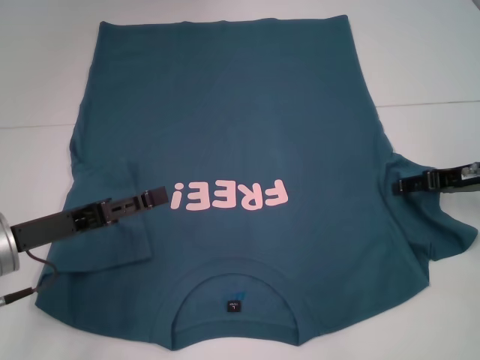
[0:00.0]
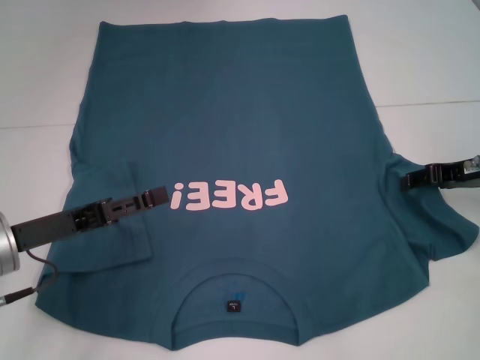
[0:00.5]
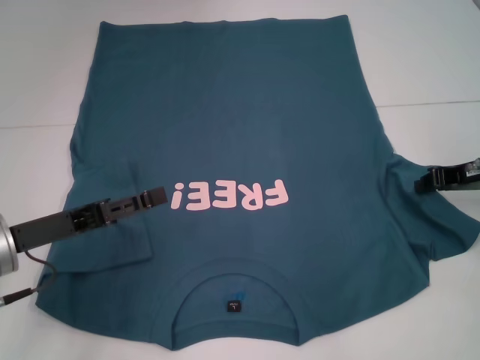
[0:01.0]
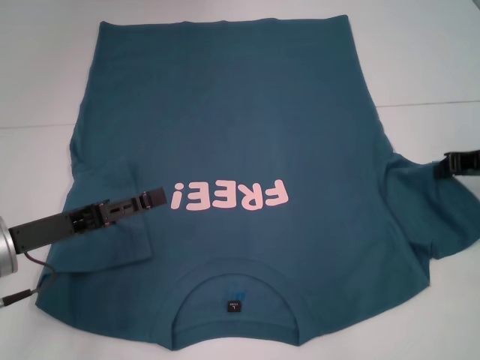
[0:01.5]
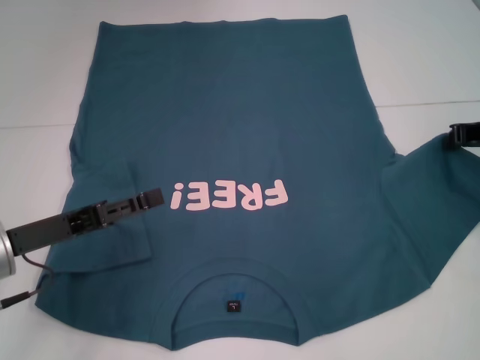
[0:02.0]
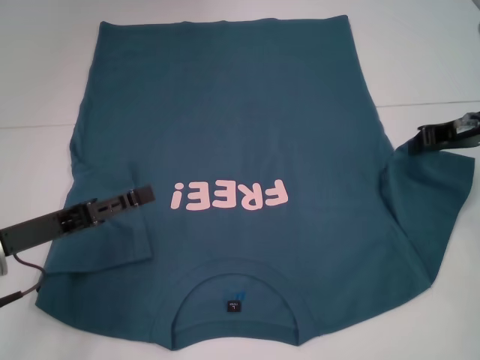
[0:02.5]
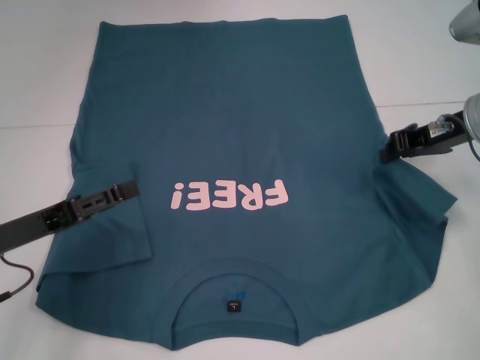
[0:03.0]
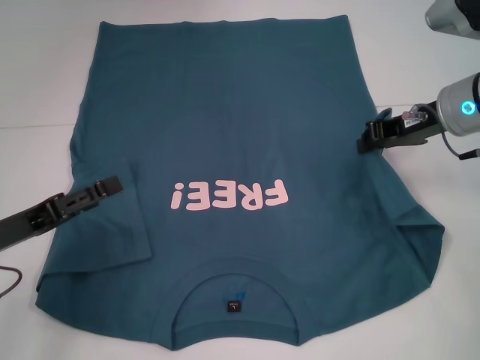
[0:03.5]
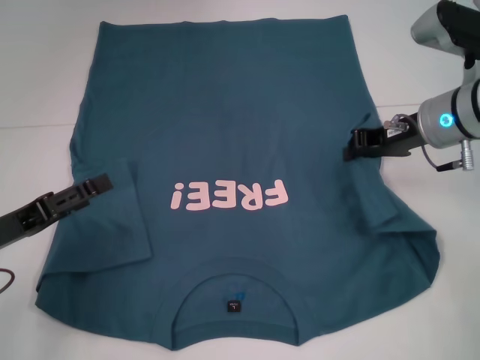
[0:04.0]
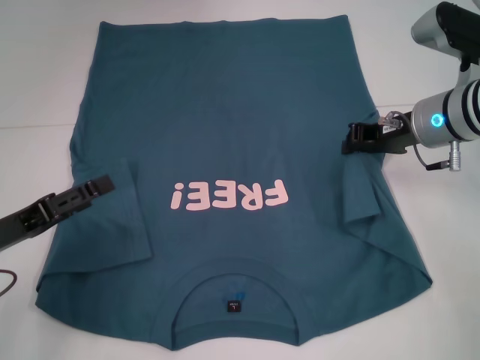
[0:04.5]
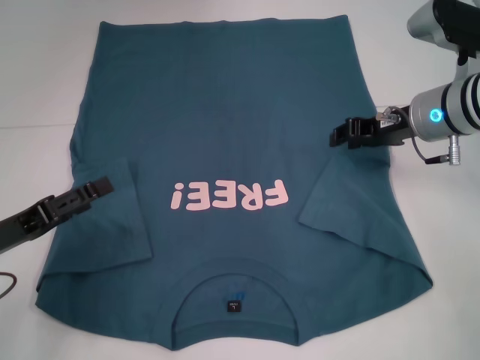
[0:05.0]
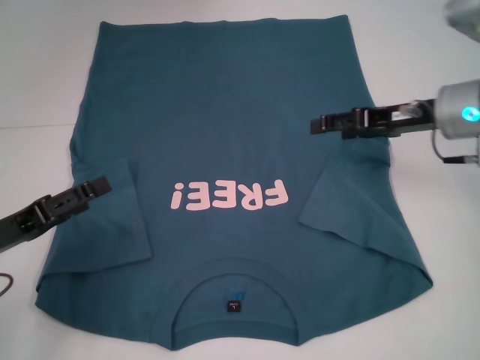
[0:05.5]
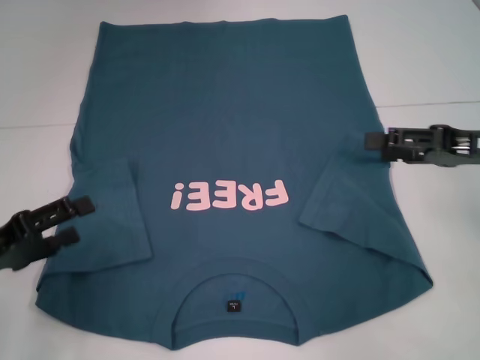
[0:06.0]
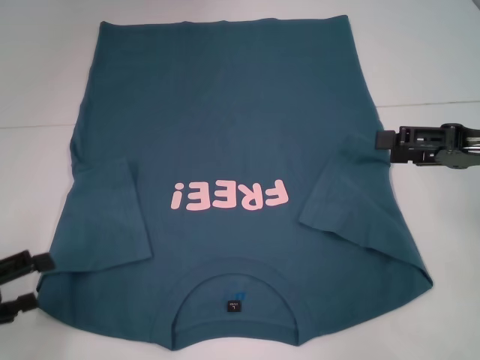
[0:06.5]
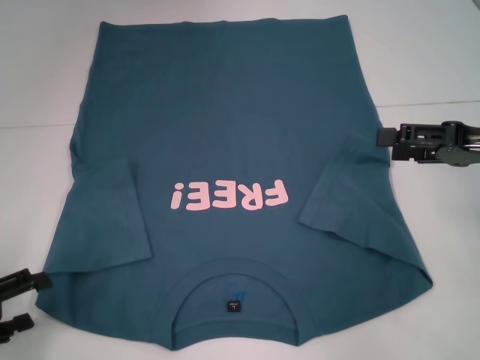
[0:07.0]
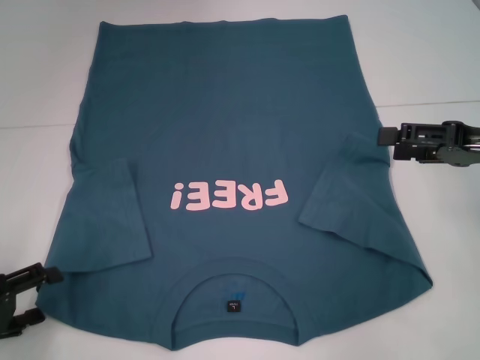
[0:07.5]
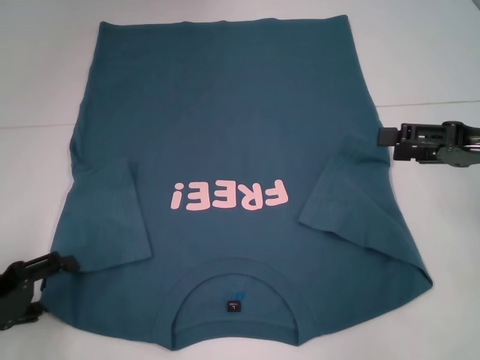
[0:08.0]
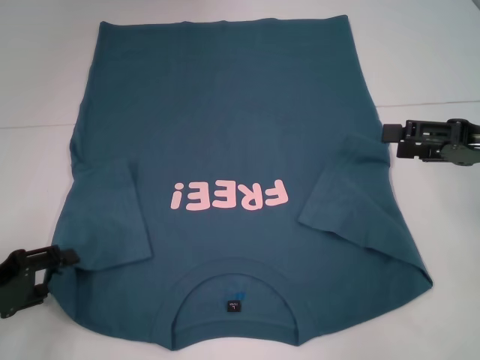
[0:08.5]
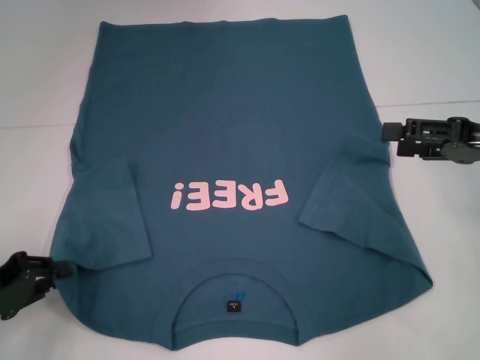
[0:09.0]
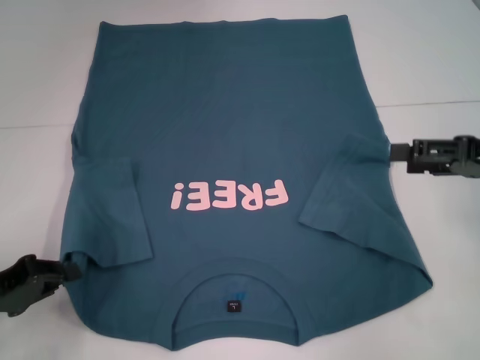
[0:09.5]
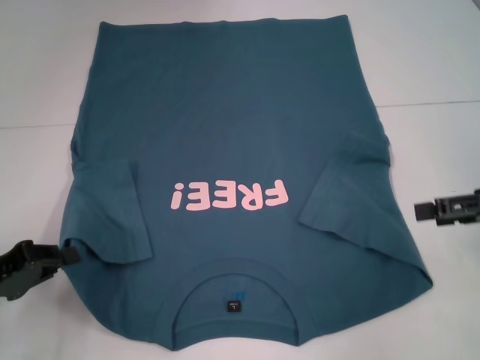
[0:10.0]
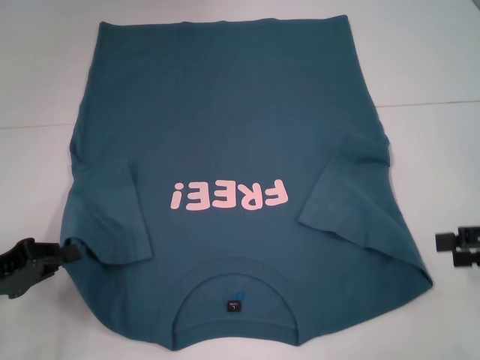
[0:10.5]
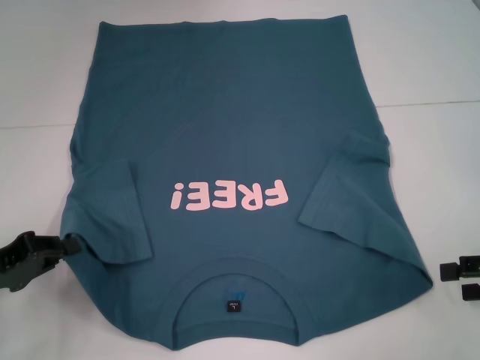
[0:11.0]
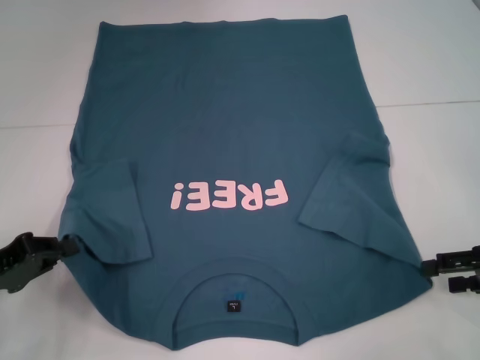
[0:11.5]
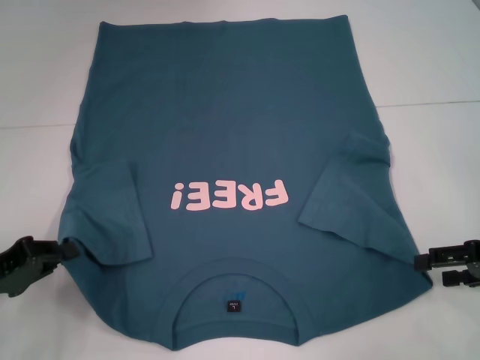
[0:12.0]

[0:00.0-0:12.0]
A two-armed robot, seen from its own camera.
Step, 0.0 to 4.5 s: Fold the bottom right sleeve to the right.
Step, 5.0 to 9.0 s: Grab the bottom left corner with your left hand.
0.0 to 2.0 s: The right gripper moves approximately 5 cm, and closes its fingers.
2.0 to 4.0 s: The right gripper moves to the left, roughly 10 cm.
4.0 to 6.0 s: The right gripper shifts some 10 cm backward and to the right, and opens its fingers.
8.0 to 10.0 s: The left gripper closes.
10.0 to 12.0 s: The right gripper is displaced downward by approximately 5 cm.

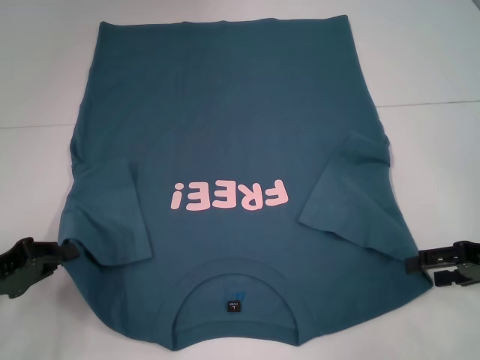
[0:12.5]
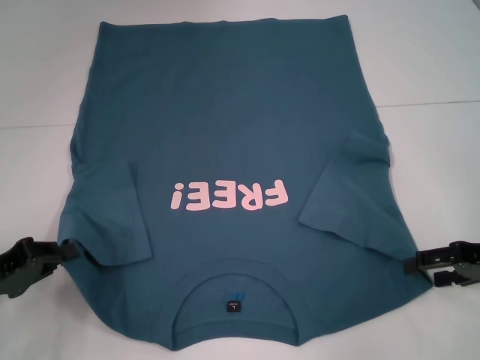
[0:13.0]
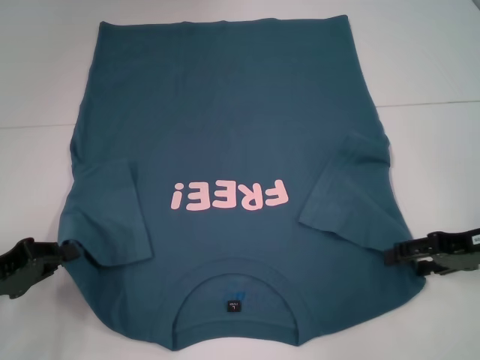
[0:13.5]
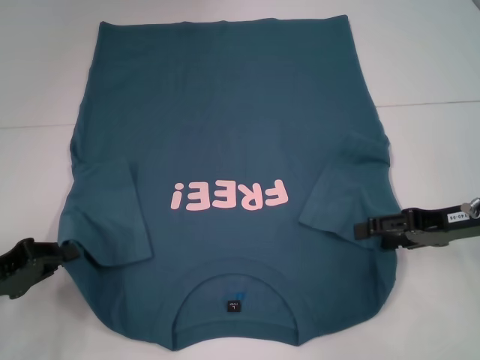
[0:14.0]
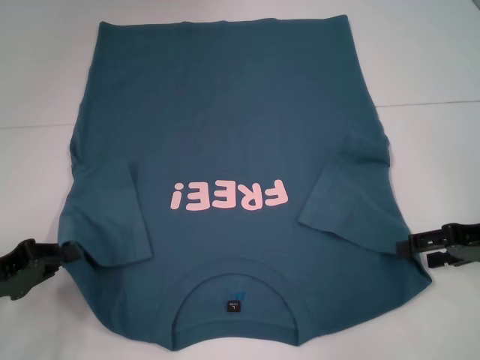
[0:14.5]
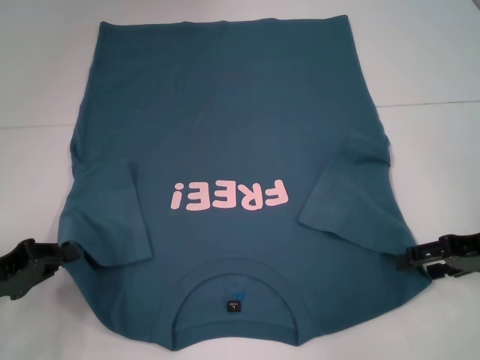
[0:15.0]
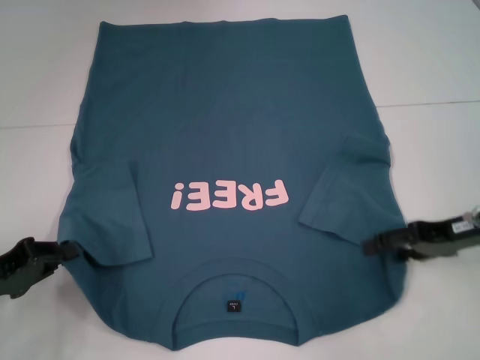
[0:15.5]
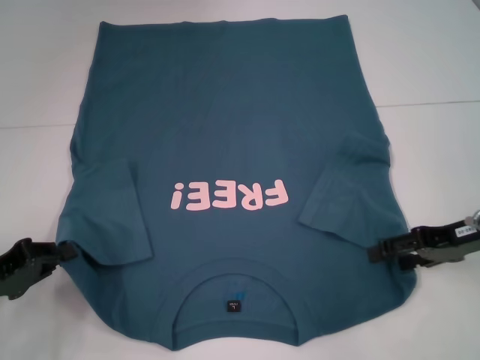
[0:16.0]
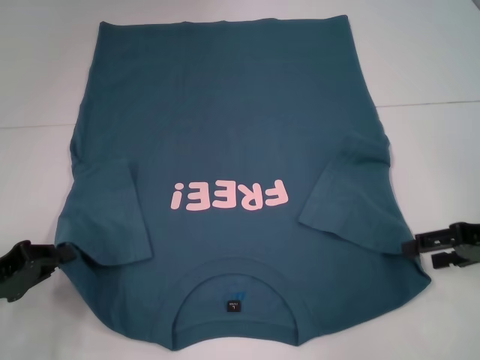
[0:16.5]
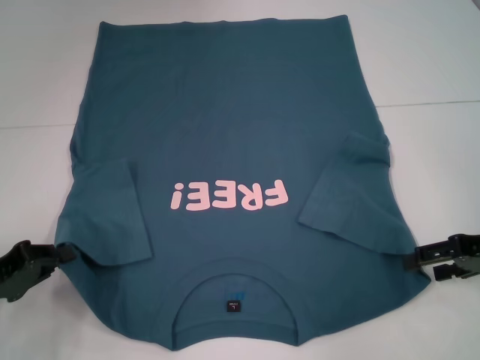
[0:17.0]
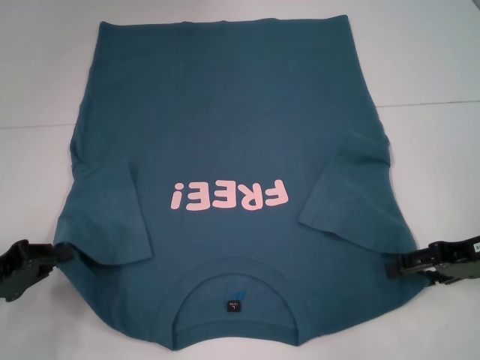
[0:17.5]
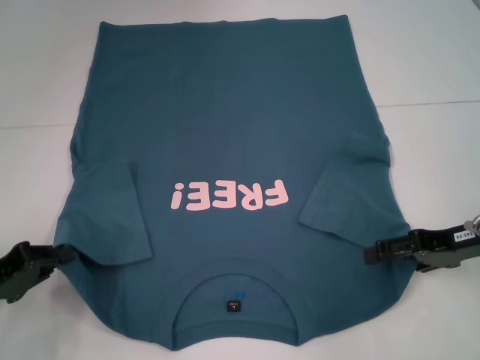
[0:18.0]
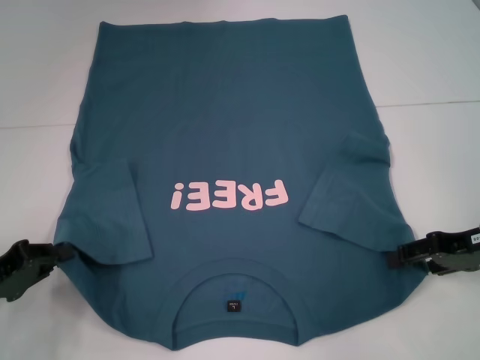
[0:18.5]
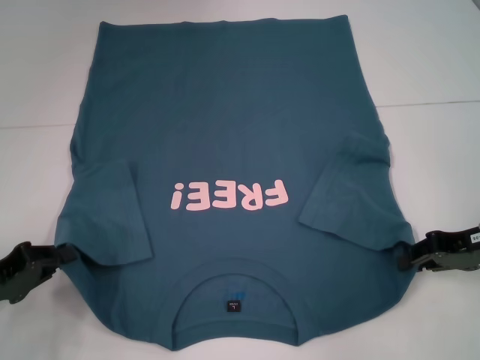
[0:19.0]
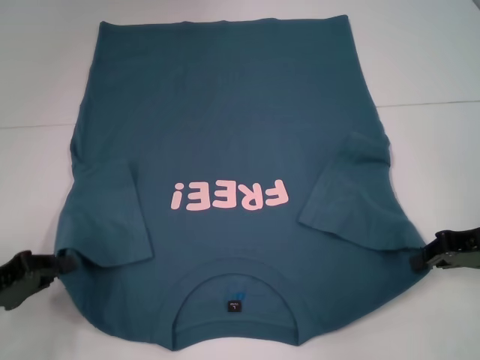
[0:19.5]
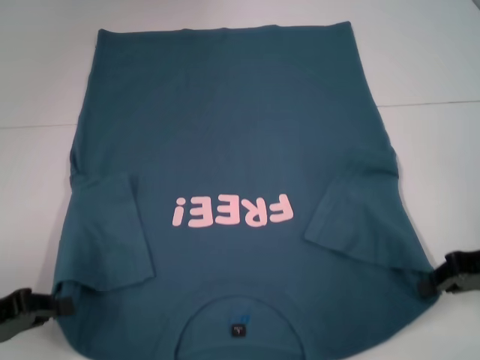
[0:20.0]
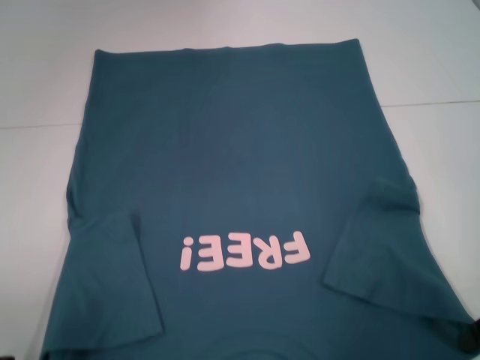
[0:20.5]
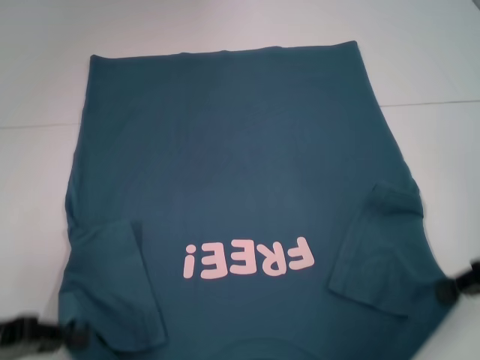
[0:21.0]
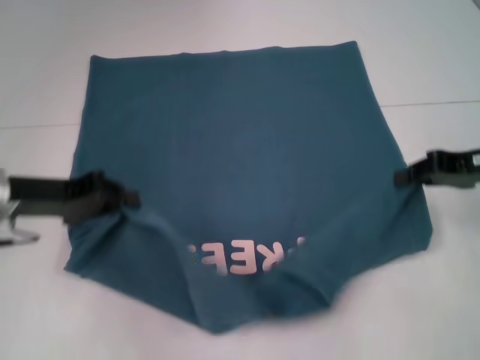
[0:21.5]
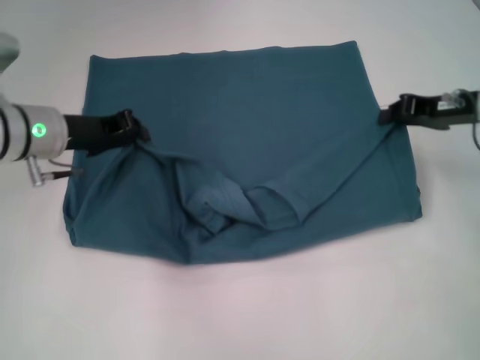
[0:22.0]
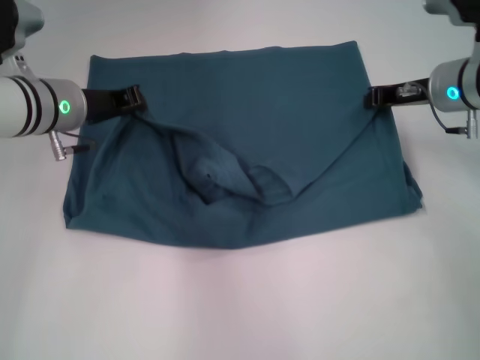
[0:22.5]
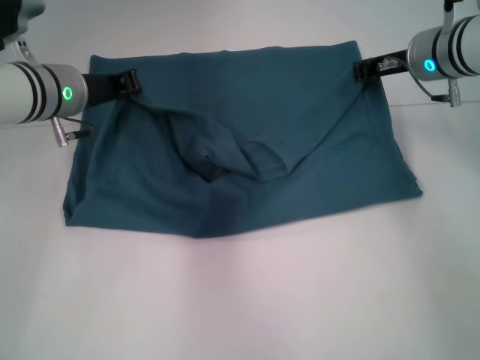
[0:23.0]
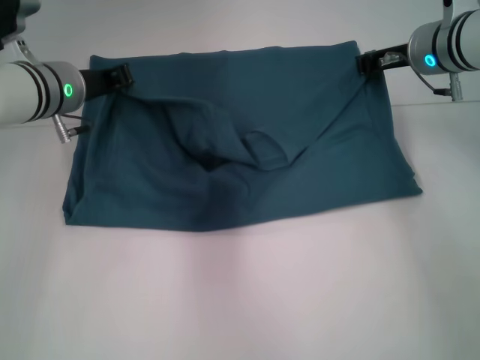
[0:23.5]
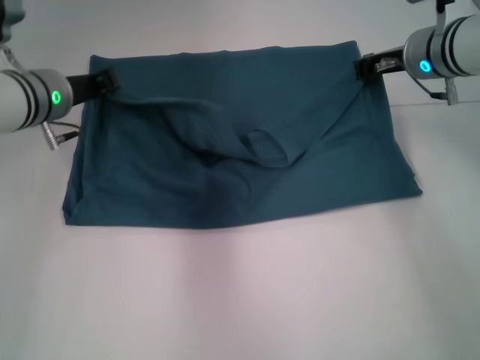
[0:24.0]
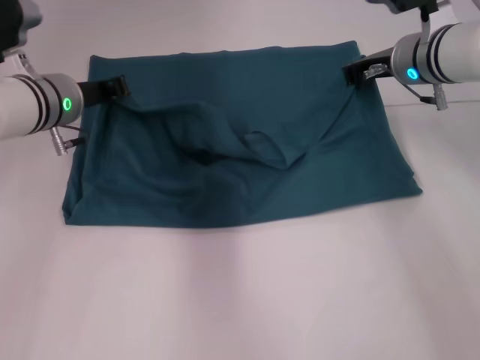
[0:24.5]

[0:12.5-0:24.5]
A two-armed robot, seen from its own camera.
Step, 12.5 to 19.0 s: Grab the bottom right corner with your right hand.
12.5 to 14.5 s: The grippers stay close to where they were, moving slightly.
14.5 to 18.5 s: The grippers make only small movements.
18.5 to 20.5 s: The grippers both shift backward by approximately 5 cm. The right gripper closes up.
20.5 to 22.5 s: The right gripper is displaced forward and to the left by roughly 20 cm, while the left gripper is displaced forward and to the right by roughly 30 cm.
22.5 to 24.5 s: The right gripper moves some 5 cm.

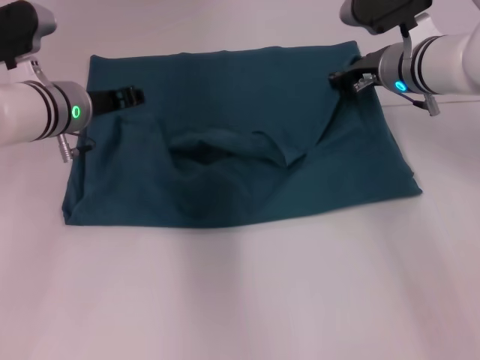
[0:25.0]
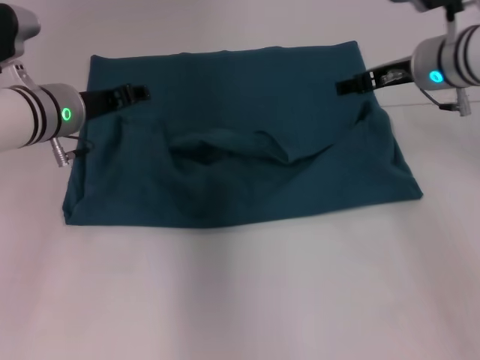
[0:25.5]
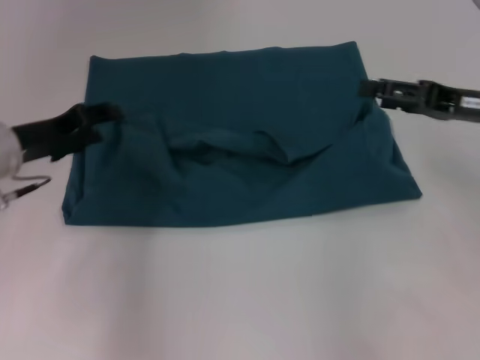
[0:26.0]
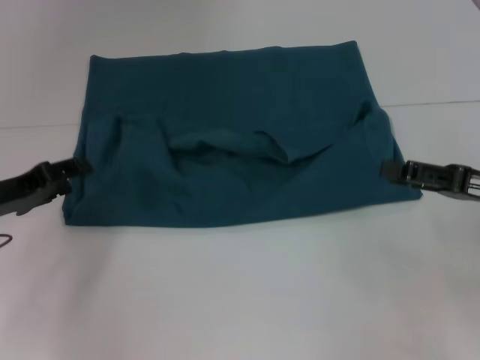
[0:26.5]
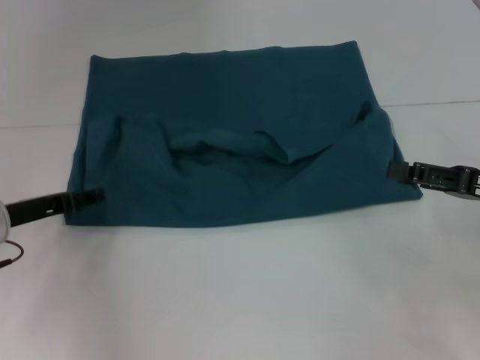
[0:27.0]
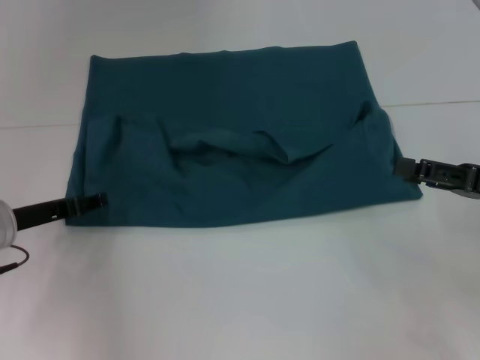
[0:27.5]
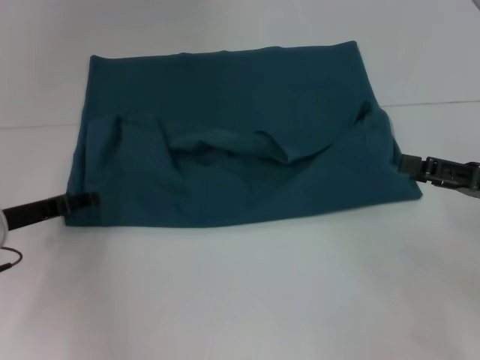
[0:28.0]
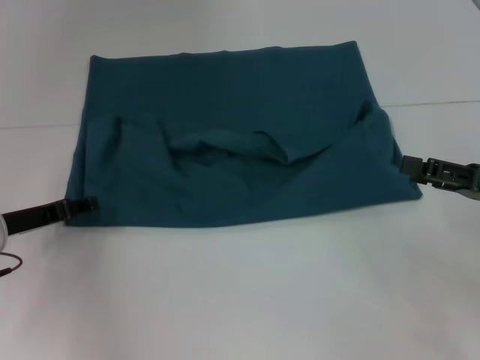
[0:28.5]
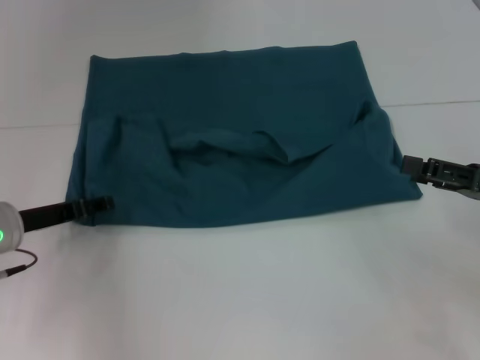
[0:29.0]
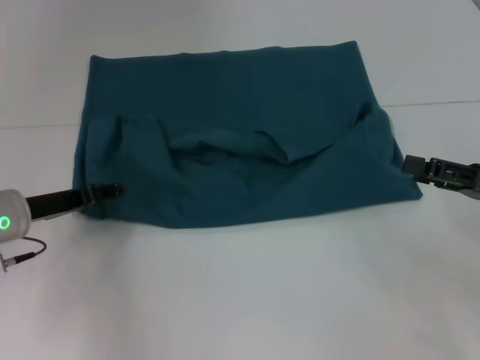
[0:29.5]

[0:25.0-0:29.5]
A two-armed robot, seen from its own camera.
25.0 to 27.0 s: The left gripper moves to the left, backward and downward, roughly 15 cm, and opens up; the right gripper shifts about 25 cm backward and to the right, and opens up.
27.0 to 29.5 s: The grippers move only a little.
